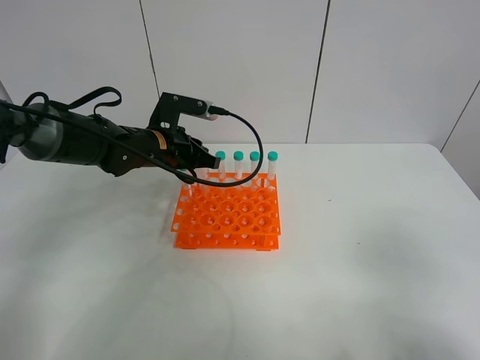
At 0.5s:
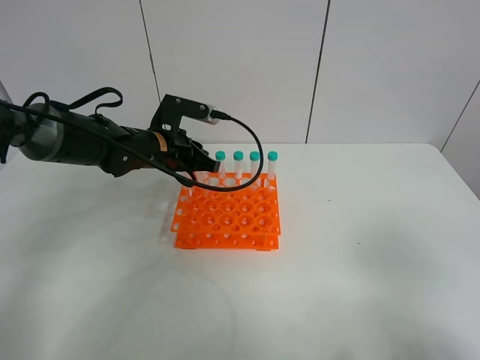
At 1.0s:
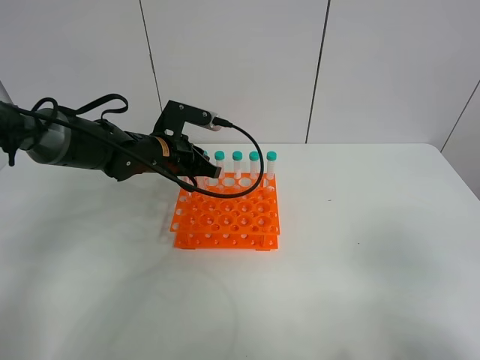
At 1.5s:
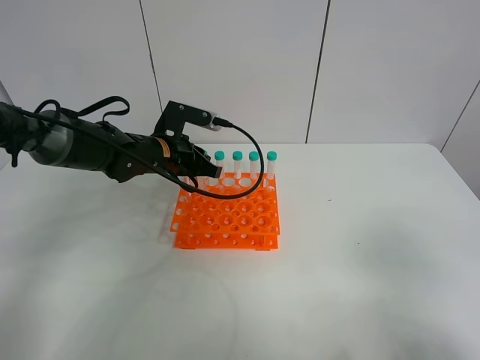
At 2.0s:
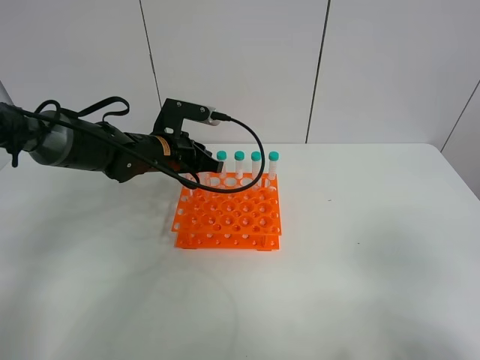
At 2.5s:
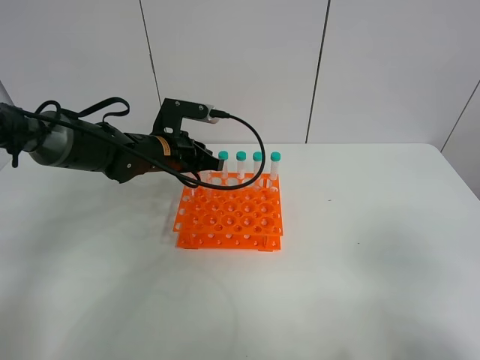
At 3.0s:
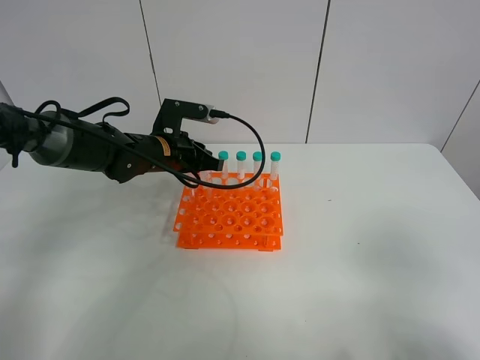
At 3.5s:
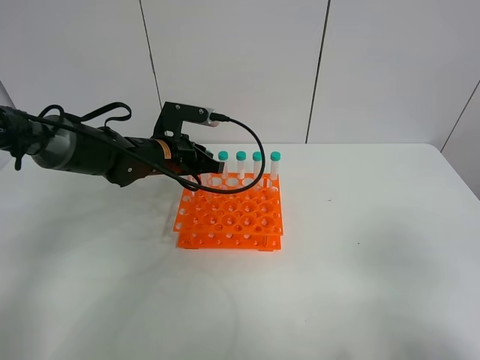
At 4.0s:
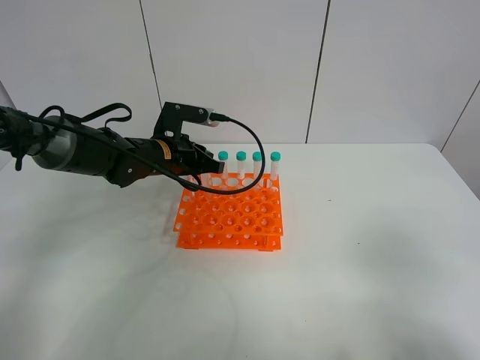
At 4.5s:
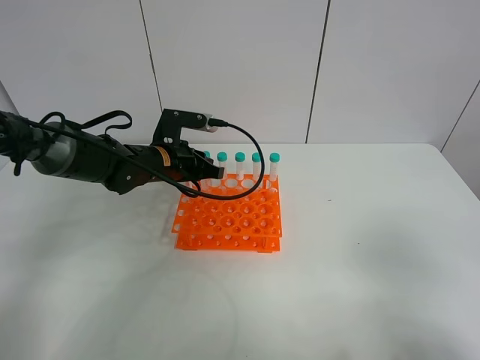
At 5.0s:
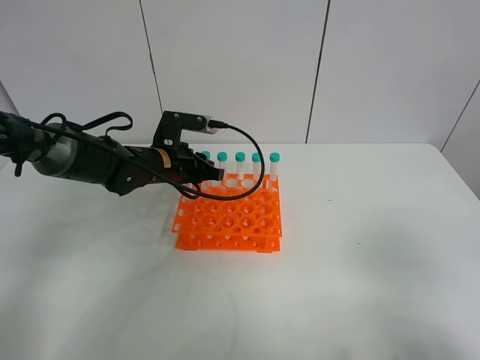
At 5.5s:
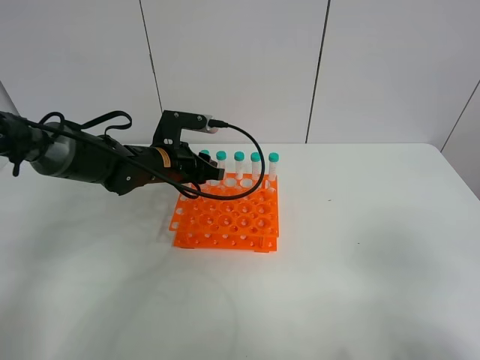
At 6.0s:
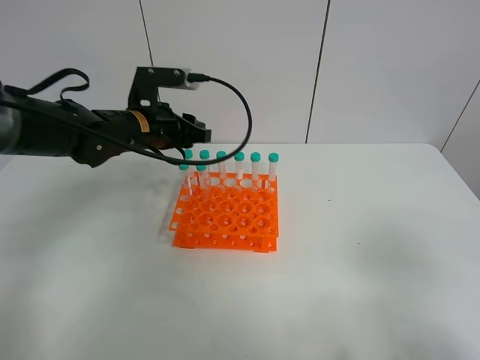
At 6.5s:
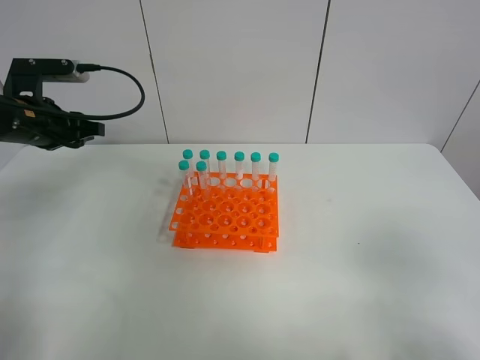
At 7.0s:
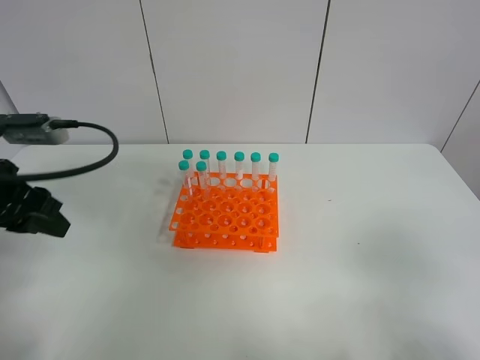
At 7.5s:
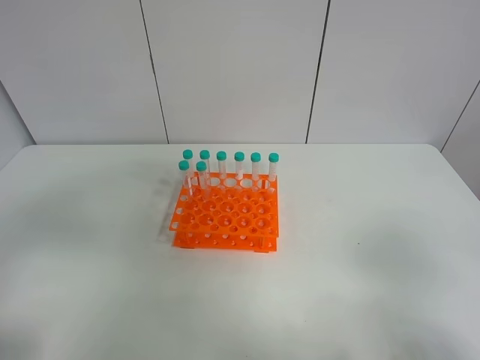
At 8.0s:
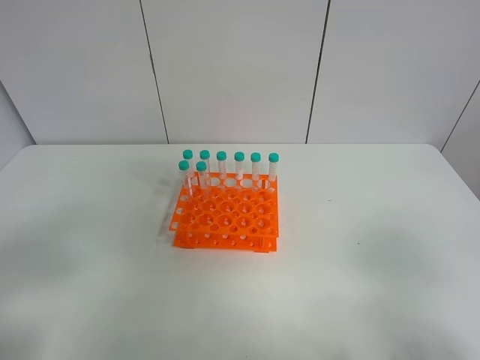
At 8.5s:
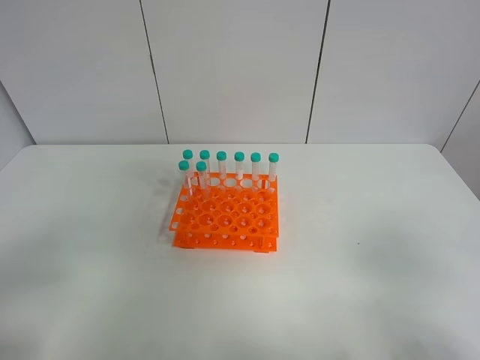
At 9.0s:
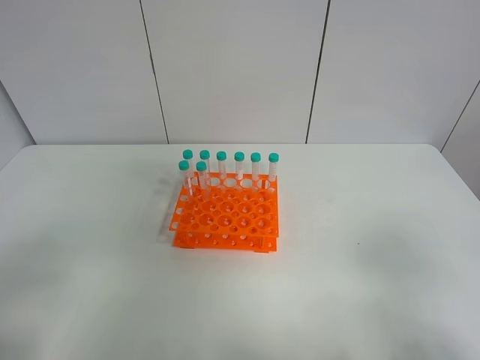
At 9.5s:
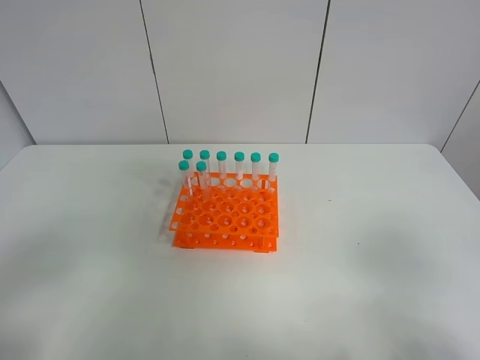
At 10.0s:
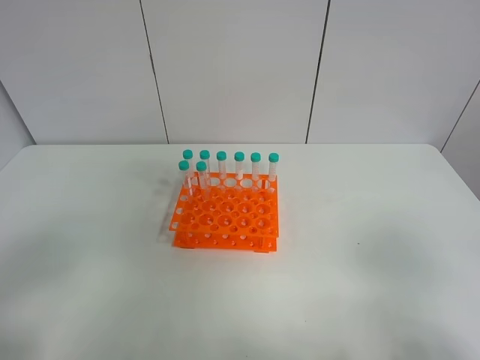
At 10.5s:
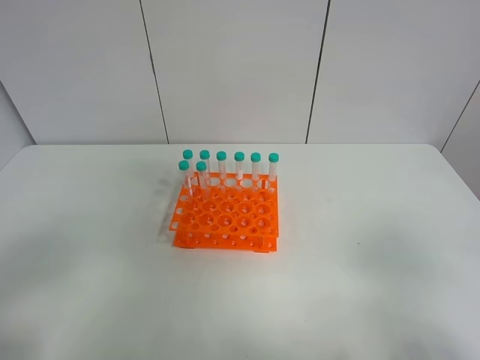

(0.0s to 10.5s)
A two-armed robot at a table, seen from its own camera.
Task of the whole recording: Put the test tube on the table back onto the test tube rack.
Step, 0.0s - 5.0s: Place the test tube on the test tube rack with the left gripper.
0.0s - 2.0s: The two grippers keep their place.
2.0s - 4.0s: Both grippers stay put.
4.0s - 6.5s: The left gripper moves to the left and upward, about 20 cm, and opens up.
6.5s - 8.5s: The left gripper goes about 35 cm backward.

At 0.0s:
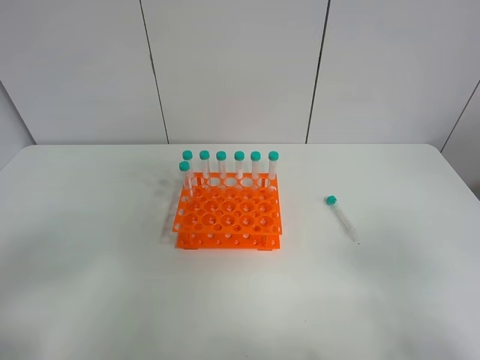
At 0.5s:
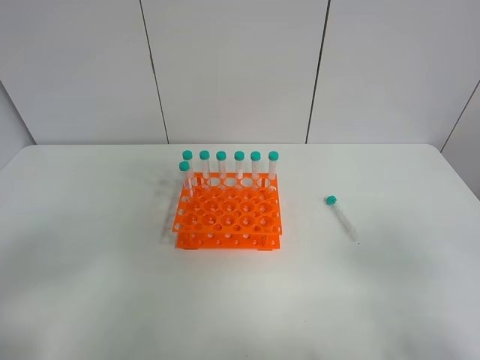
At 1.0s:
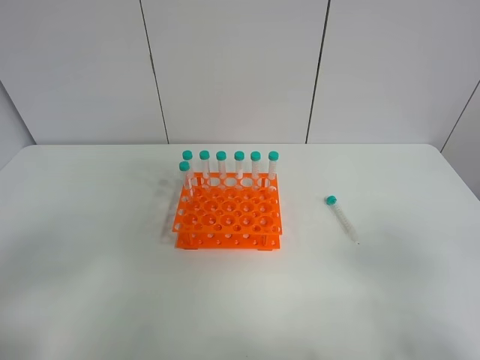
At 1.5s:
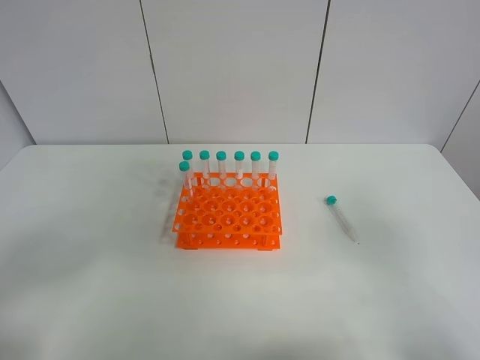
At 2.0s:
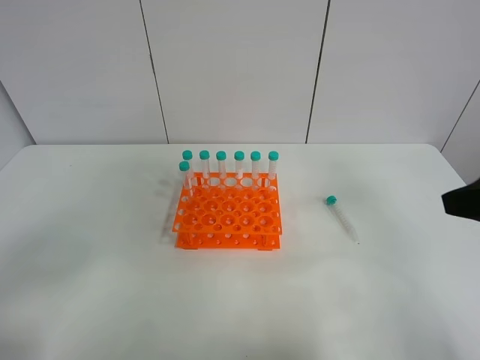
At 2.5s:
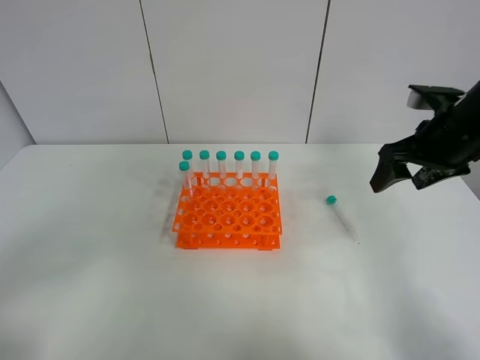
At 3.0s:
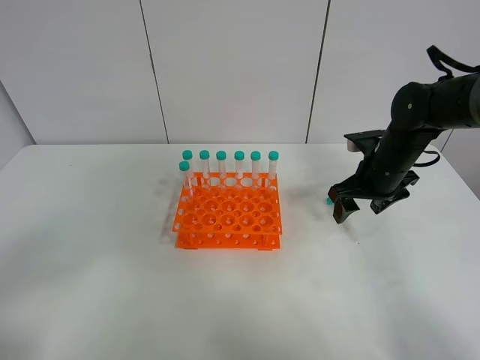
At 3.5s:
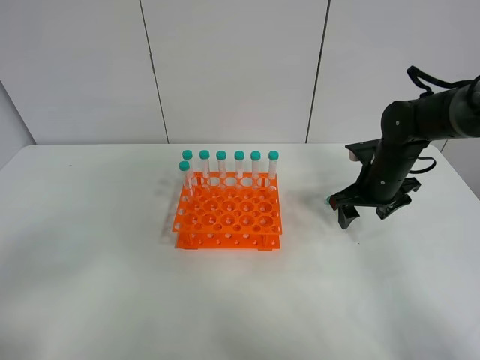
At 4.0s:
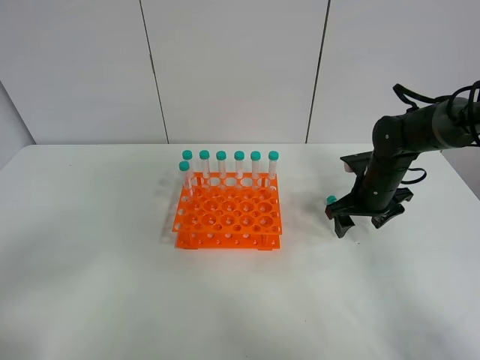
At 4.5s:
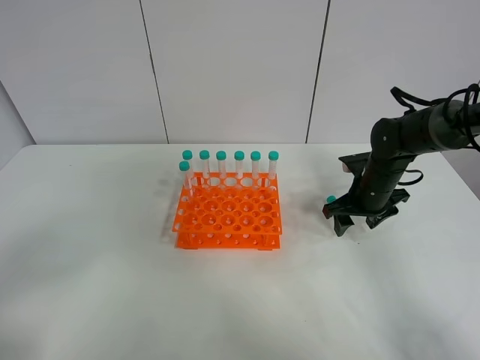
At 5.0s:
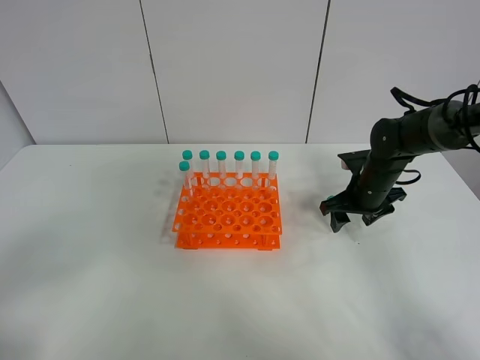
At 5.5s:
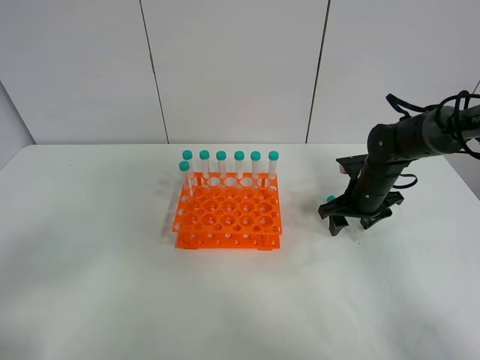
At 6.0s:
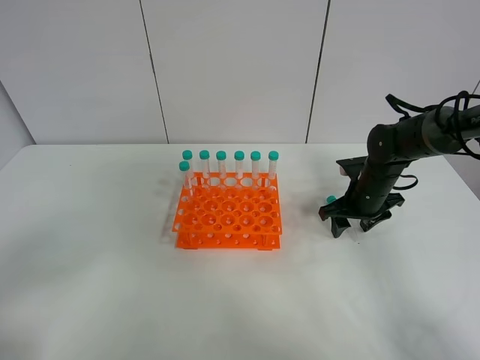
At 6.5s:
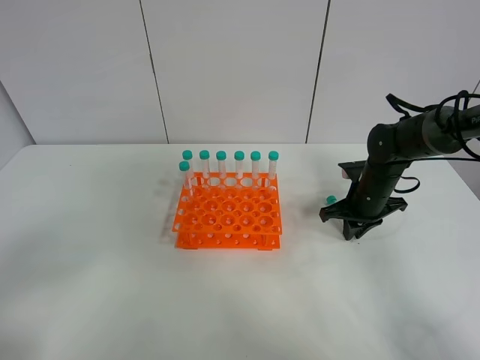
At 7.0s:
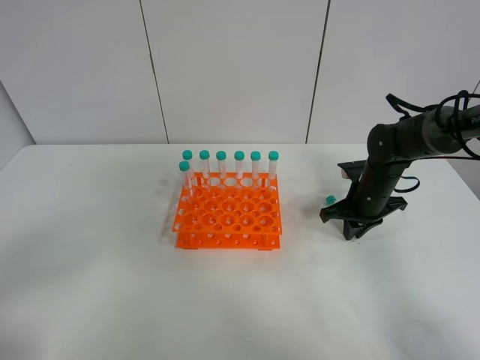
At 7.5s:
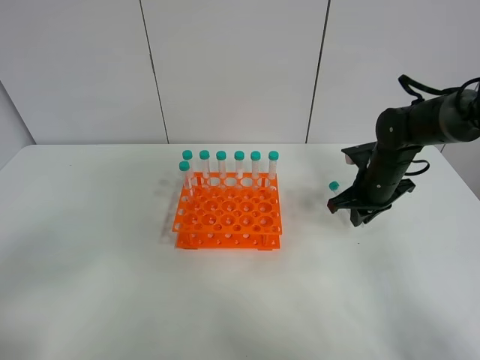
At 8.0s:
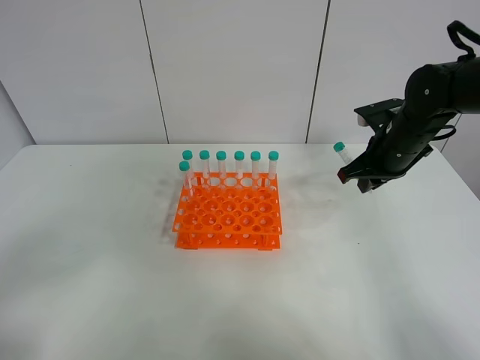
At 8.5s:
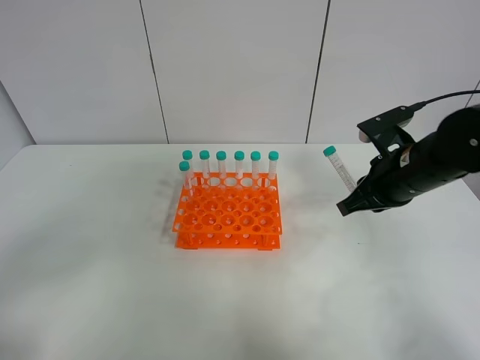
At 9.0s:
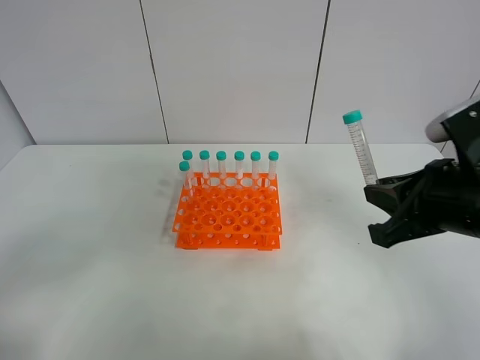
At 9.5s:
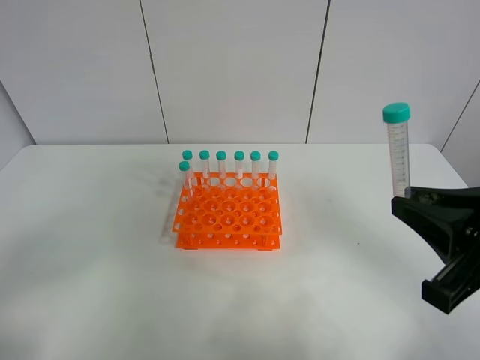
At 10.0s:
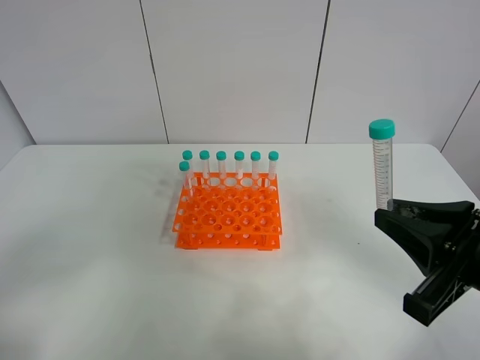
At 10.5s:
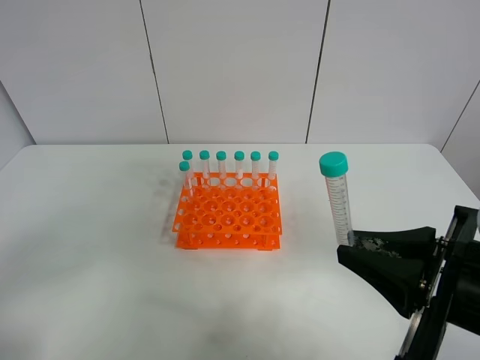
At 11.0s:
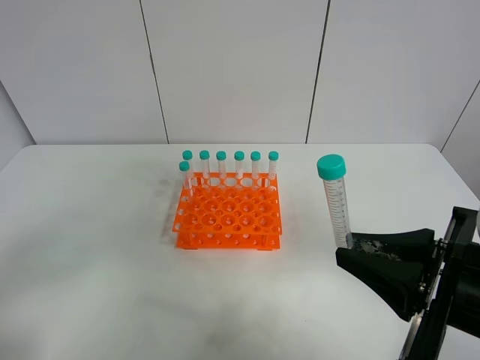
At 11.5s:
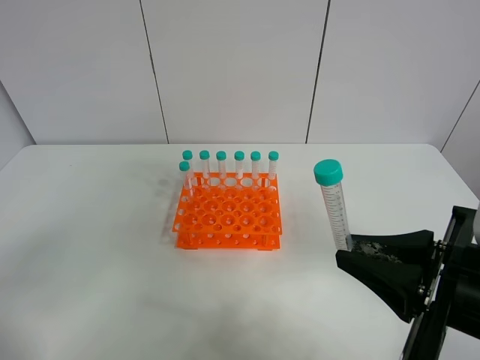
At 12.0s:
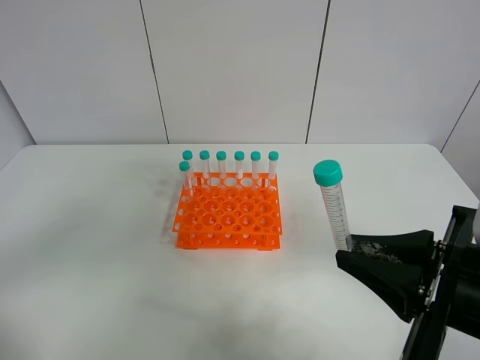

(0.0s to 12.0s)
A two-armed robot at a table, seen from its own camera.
Task of the whole recording: Put the test tube on the table back onto the test tube rack.
Step, 0.0s - 6.5s: Pick up the test tube with the right gripper.
0.0s - 2.0s: The right gripper goes about 15 cm forward.
2.0s - 4.0s: The right gripper heads forward and downward, covering about 30 cm.
4.0s - 6.0s: The grippers make only small movements.
6.0s - 8.0s: The right gripper shifts approximately 10 cm upward, and closes.
8.0s - 10.0s: The right gripper heads backward, covering approximately 25 cm.

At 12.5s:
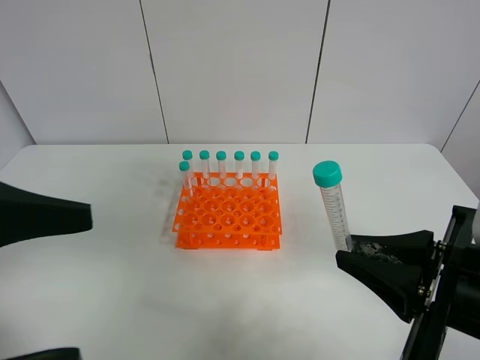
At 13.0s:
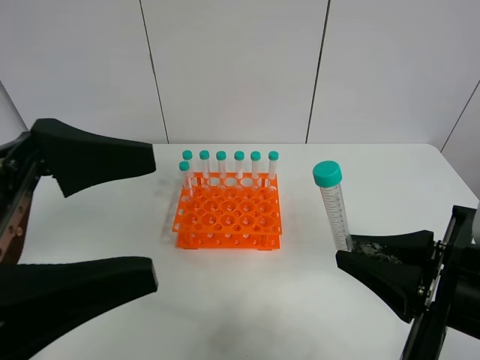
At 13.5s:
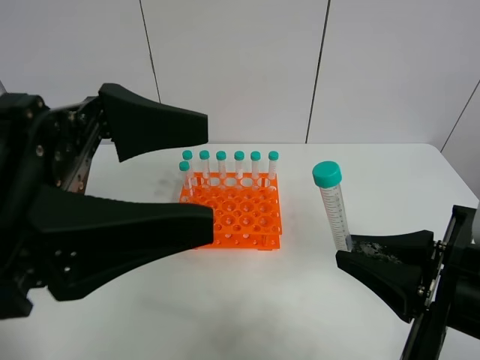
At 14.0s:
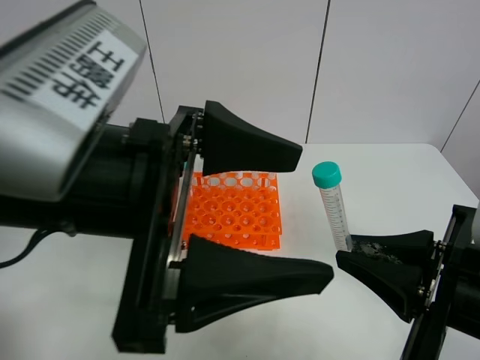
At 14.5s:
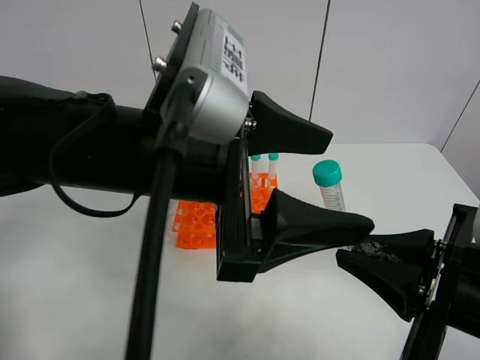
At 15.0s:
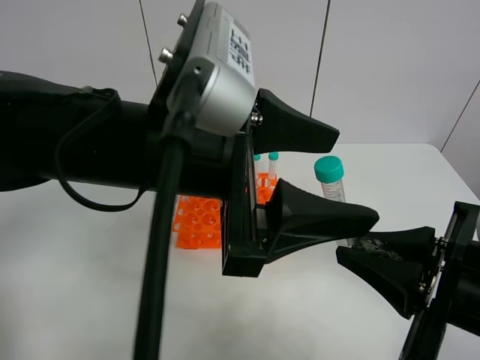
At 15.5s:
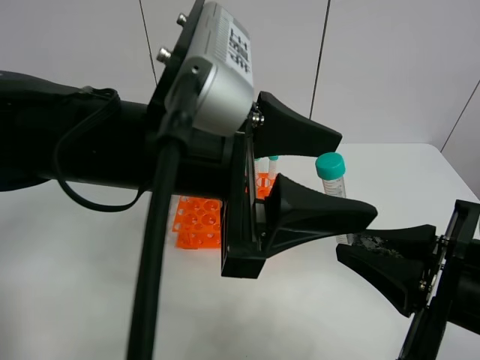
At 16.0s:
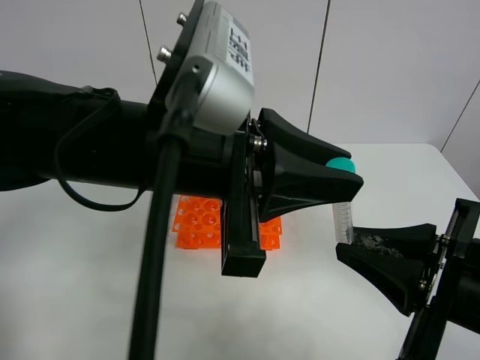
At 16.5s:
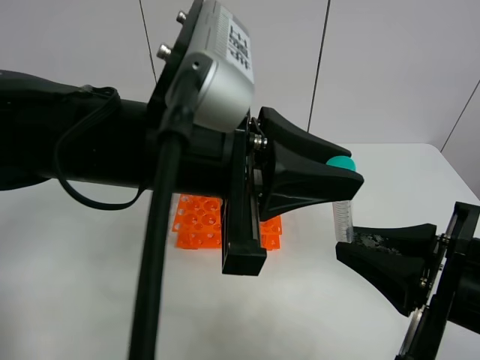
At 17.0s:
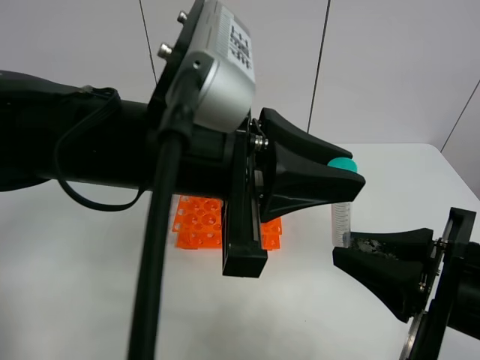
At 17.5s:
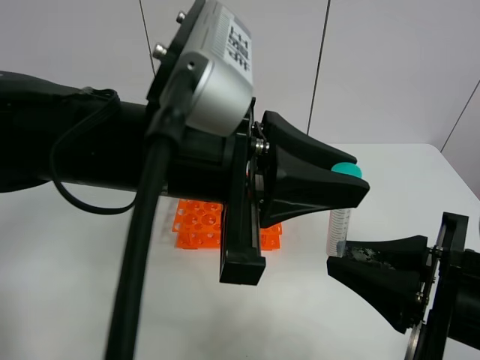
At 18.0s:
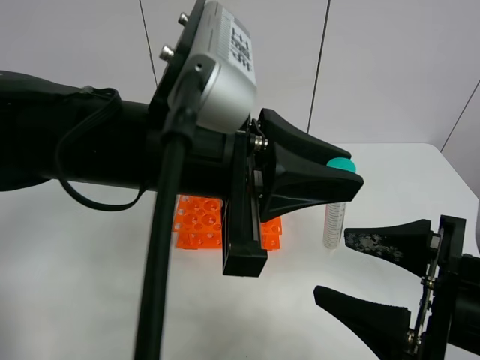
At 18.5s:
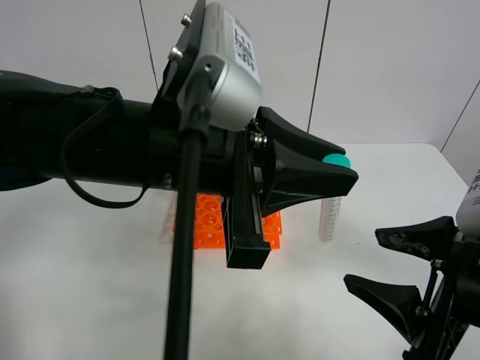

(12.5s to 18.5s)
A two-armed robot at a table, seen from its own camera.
Task of the whole recording: Put the test tube on the table back onto the test tube rack.
Step, 12.5s - 17.5s: Move the test tube from the right gripper to the left gripper.
12.5s - 14.5s: The left gripper is displaced to the right and forward by roughly 20 cm.
14.5s - 16.5s: The left gripper closes up.
16.5s - 18.5s: The right gripper opens up.
